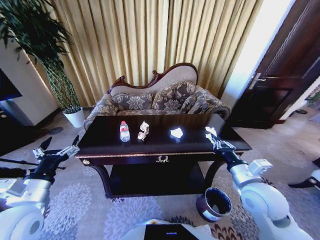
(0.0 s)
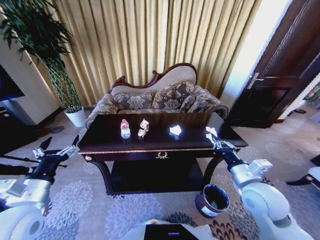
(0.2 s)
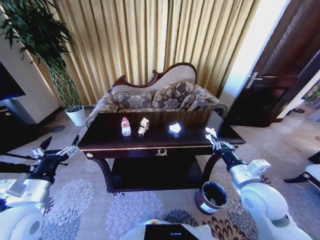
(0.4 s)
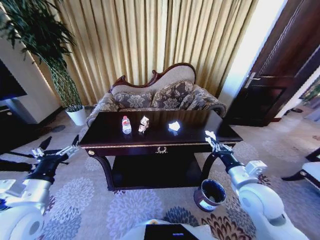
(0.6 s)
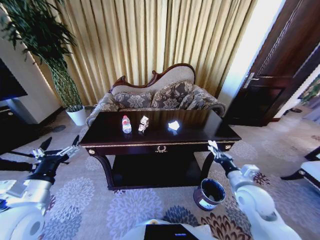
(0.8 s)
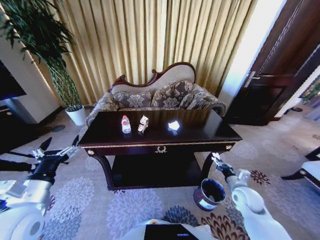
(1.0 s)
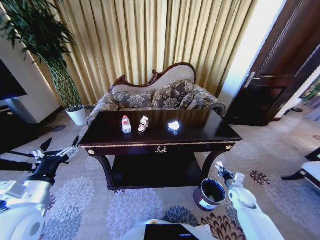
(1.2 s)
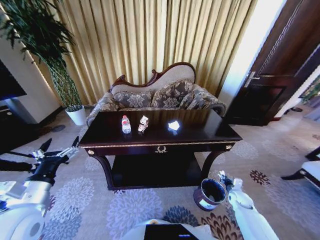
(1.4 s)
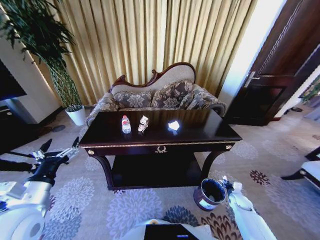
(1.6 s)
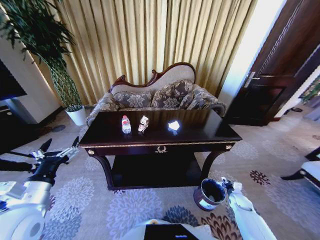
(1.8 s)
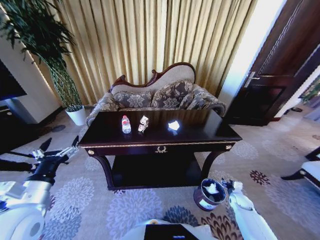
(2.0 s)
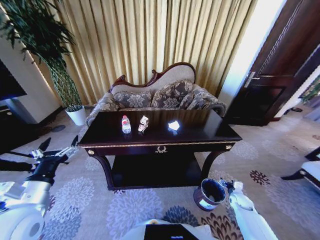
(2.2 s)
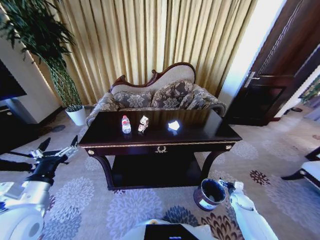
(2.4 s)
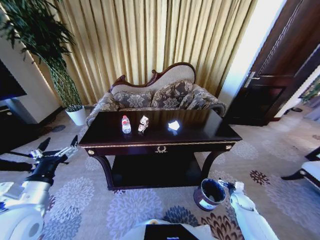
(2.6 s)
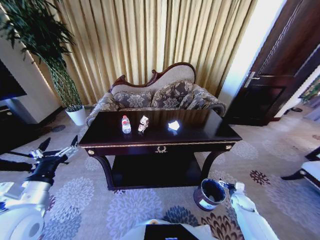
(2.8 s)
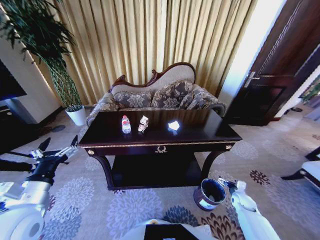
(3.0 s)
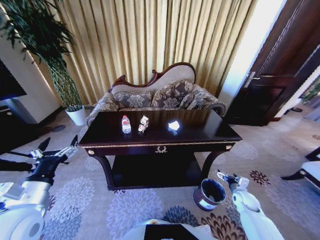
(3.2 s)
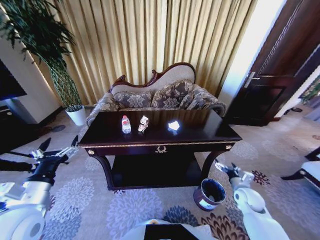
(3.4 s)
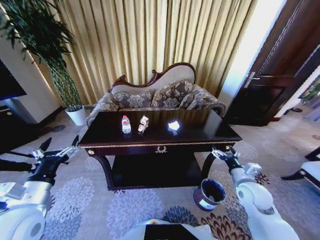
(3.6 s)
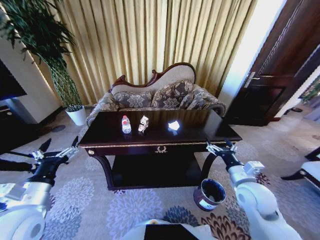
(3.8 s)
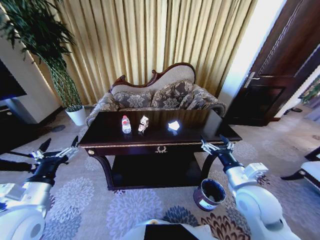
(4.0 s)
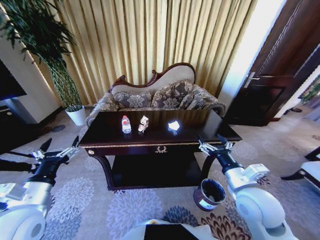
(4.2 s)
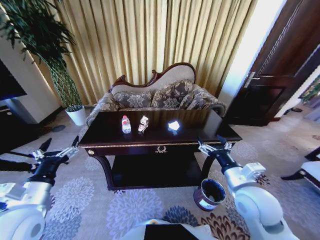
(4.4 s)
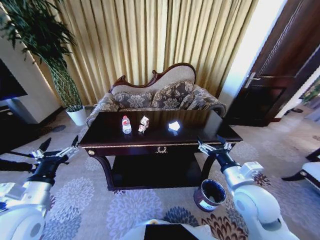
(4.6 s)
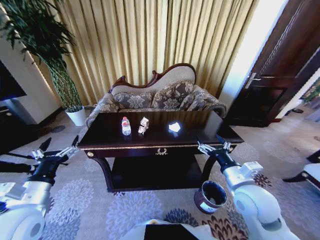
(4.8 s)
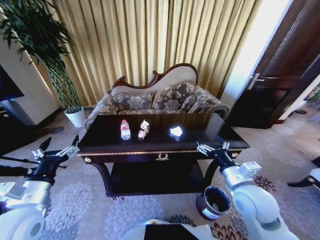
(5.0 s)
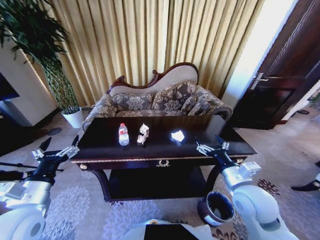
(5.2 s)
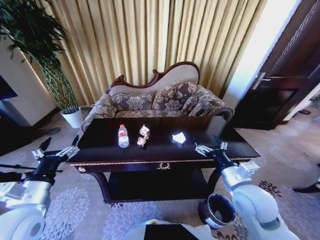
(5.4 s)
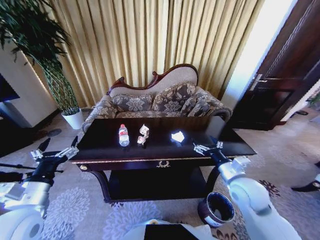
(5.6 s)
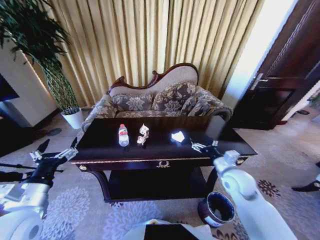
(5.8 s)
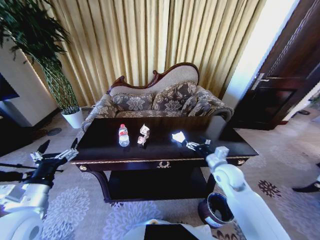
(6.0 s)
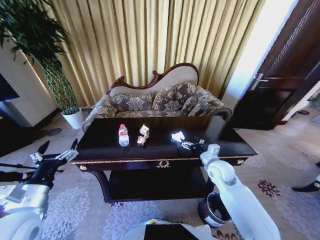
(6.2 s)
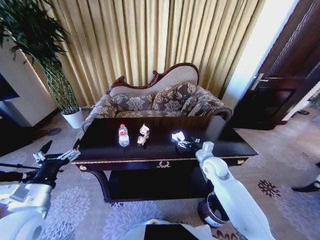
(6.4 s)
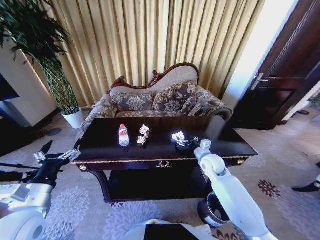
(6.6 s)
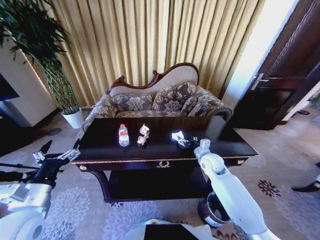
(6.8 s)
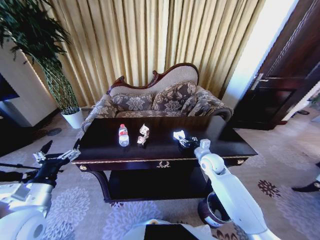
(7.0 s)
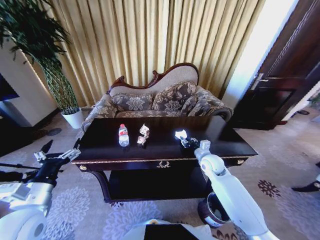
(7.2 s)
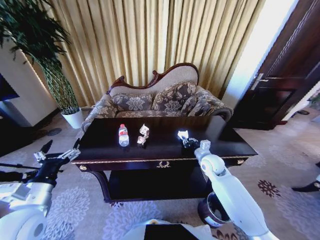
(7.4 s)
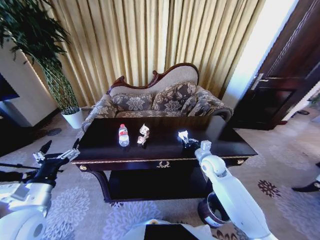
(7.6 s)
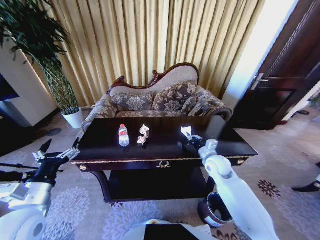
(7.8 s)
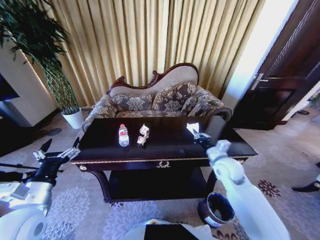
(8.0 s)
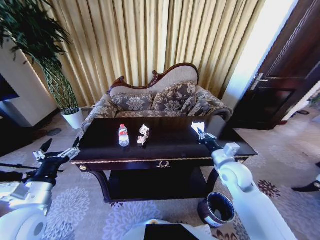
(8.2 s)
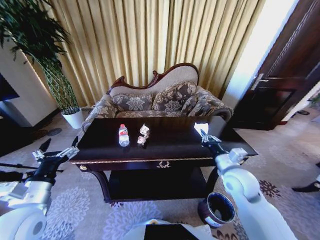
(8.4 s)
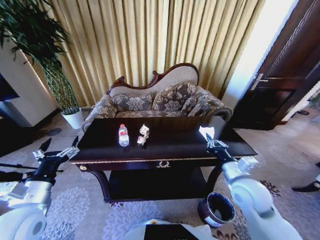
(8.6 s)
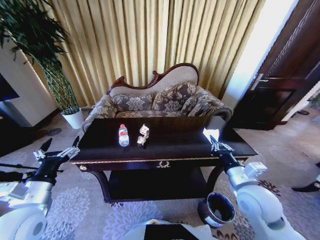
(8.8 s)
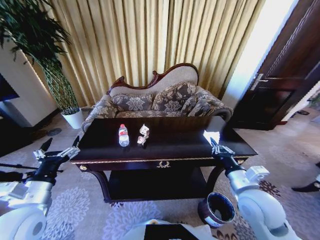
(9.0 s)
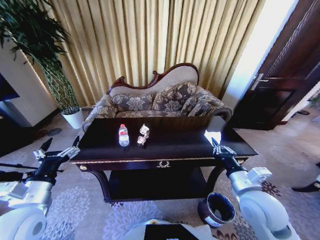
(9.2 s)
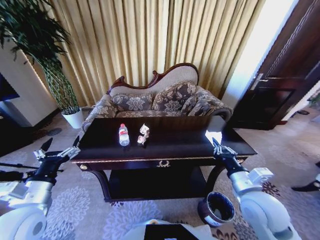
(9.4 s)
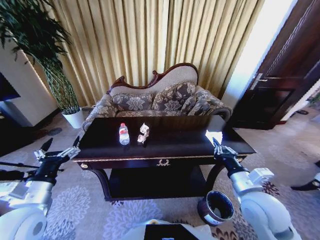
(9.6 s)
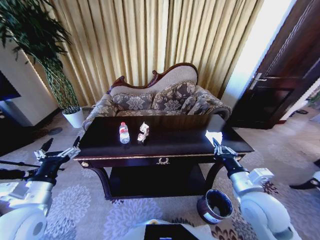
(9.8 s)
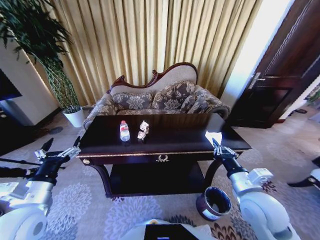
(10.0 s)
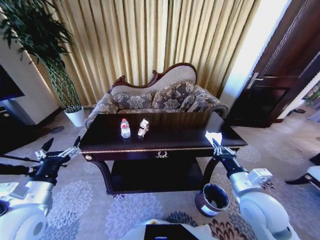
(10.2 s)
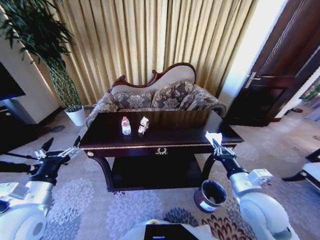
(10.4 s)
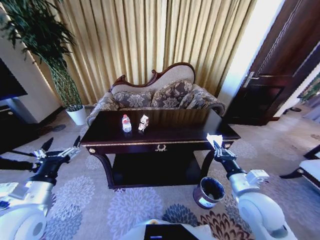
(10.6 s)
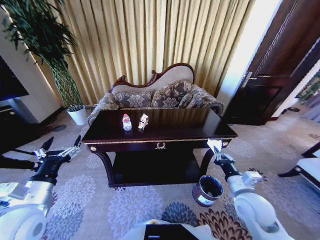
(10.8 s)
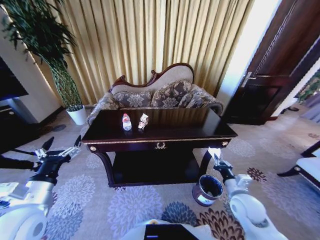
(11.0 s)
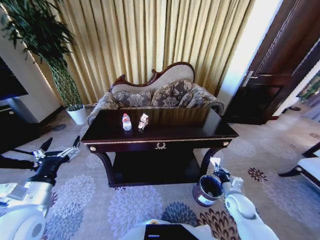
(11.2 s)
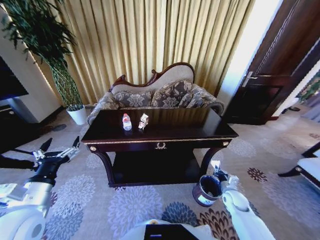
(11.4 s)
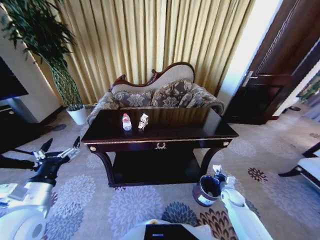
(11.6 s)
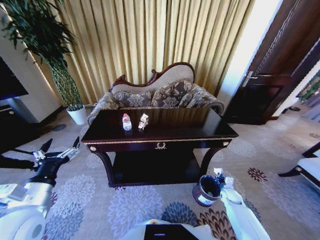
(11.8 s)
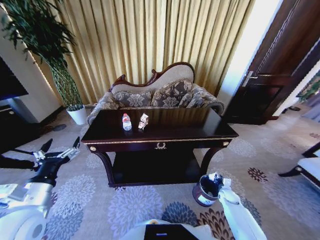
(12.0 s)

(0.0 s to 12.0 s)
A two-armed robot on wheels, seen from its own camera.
Task of the whole recording: Move to the front of the table and place the trash on the table into the trash bin.
0.0 s - 1.6 s: The right gripper goes some 35 cm downward and to the right.
1.6 s - 3.0 s: The right gripper opens its fingers.
3.0 s - 4.4 s: The right gripper shifts some 35 cm upward and to the left.
4.4 s - 6.0 s: The right gripper heads forward and downward, covering some 15 cm.
6.0 s - 7.6 s: The right gripper is displaced forward by roughly 5 cm, and closes its fingers.
7.6 s - 9.0 s: The right gripper shifts about 20 cm backward and upward.
10.4 s - 12.0 s: The right gripper moves downward and to the right, some 35 cm.

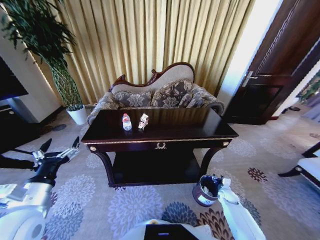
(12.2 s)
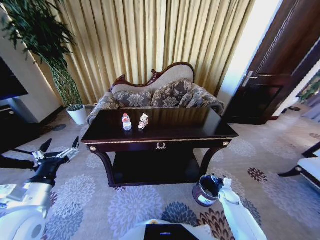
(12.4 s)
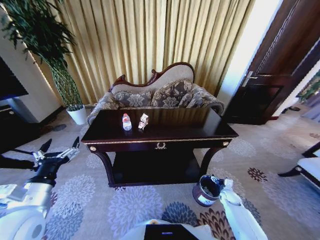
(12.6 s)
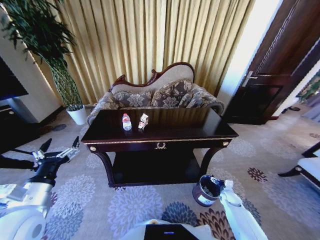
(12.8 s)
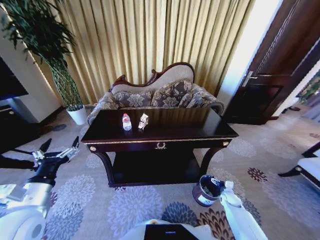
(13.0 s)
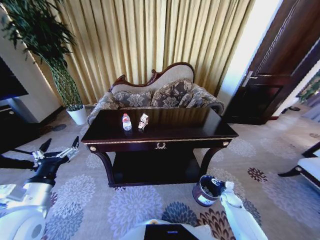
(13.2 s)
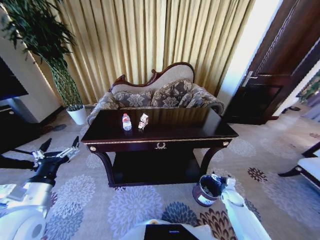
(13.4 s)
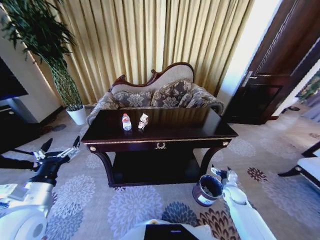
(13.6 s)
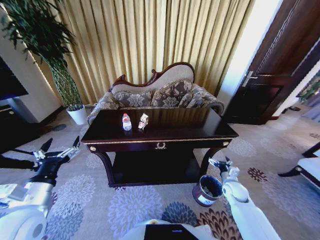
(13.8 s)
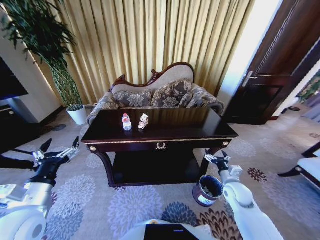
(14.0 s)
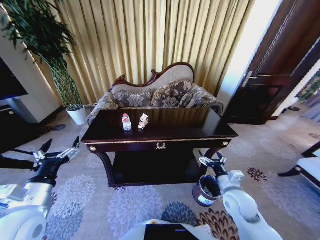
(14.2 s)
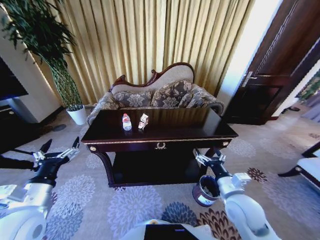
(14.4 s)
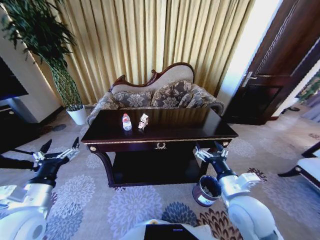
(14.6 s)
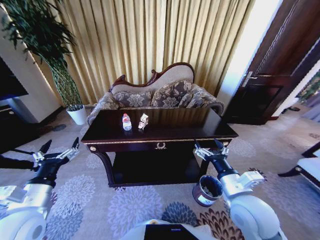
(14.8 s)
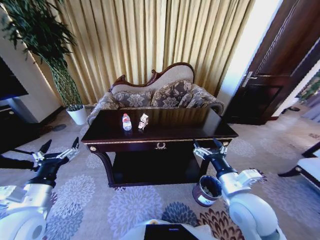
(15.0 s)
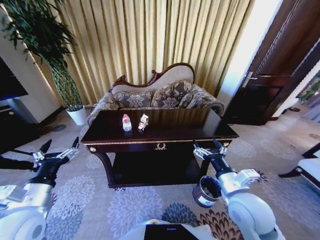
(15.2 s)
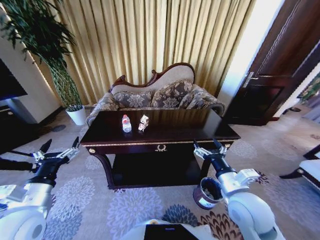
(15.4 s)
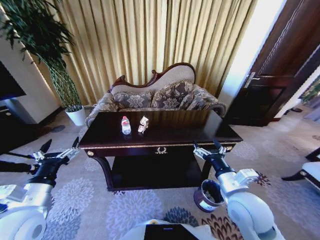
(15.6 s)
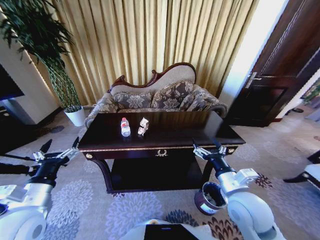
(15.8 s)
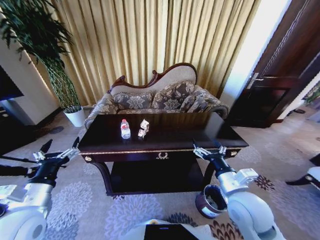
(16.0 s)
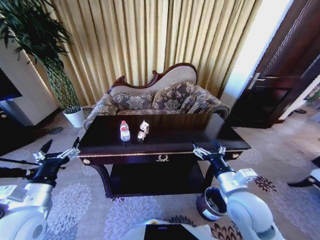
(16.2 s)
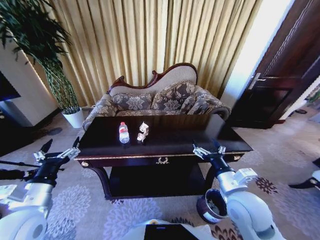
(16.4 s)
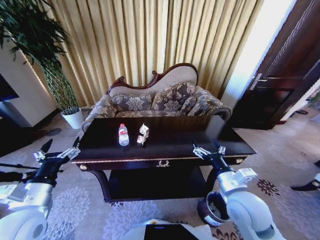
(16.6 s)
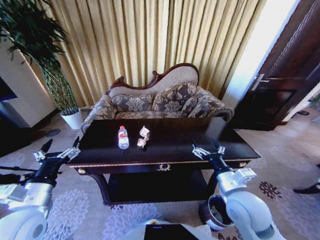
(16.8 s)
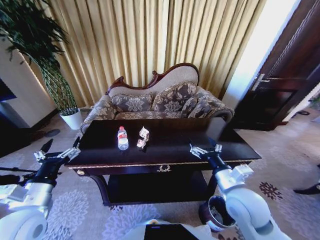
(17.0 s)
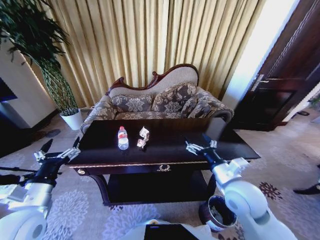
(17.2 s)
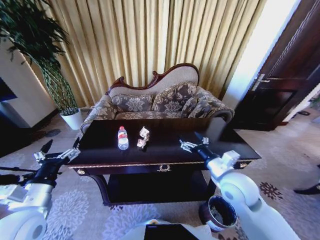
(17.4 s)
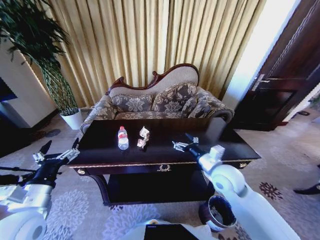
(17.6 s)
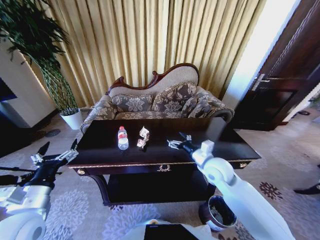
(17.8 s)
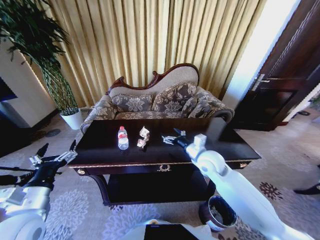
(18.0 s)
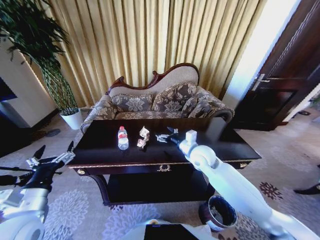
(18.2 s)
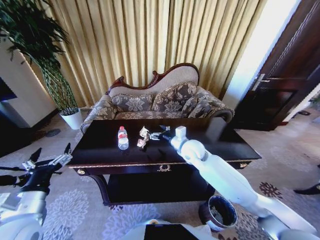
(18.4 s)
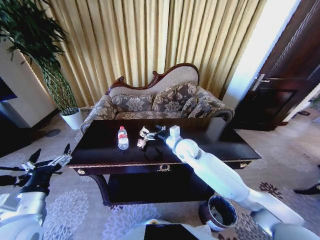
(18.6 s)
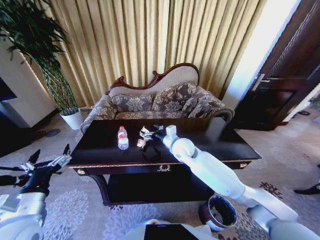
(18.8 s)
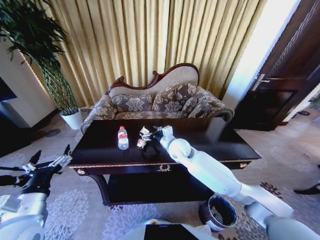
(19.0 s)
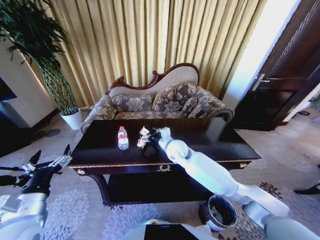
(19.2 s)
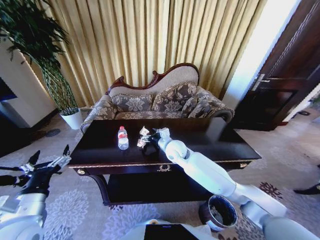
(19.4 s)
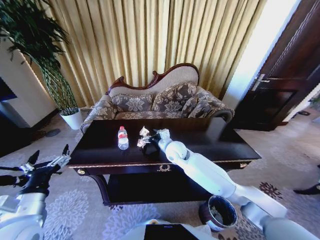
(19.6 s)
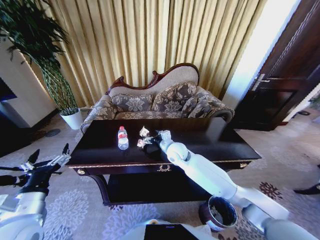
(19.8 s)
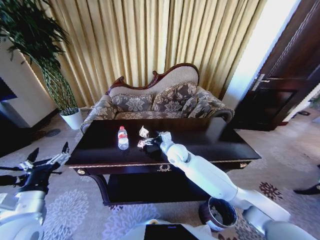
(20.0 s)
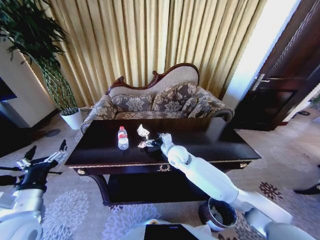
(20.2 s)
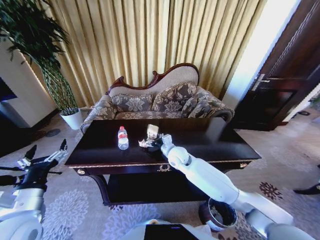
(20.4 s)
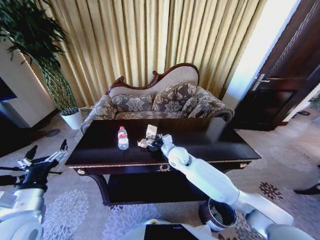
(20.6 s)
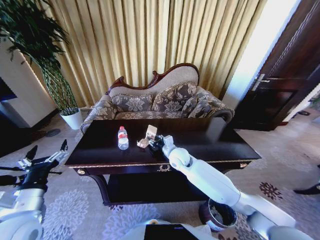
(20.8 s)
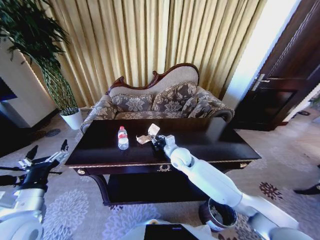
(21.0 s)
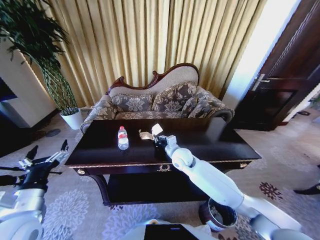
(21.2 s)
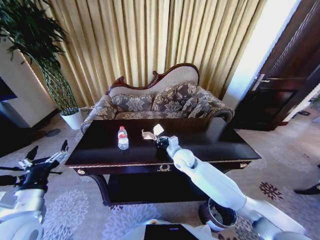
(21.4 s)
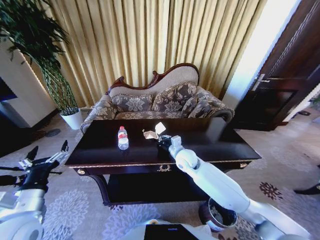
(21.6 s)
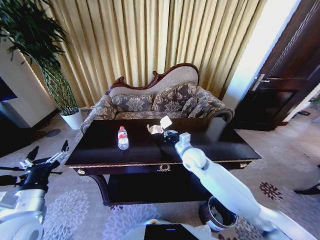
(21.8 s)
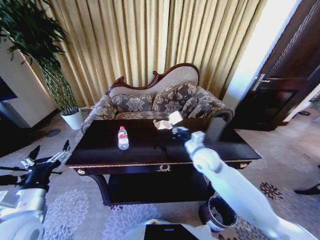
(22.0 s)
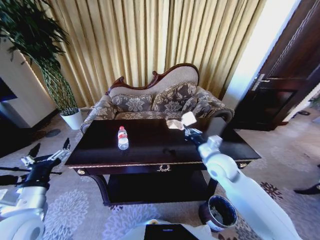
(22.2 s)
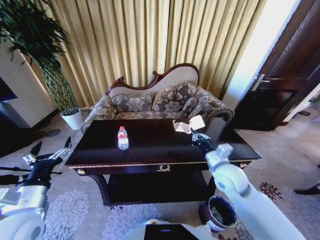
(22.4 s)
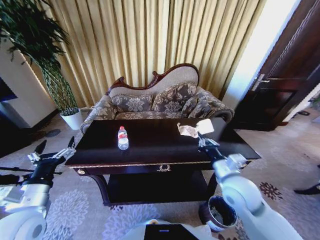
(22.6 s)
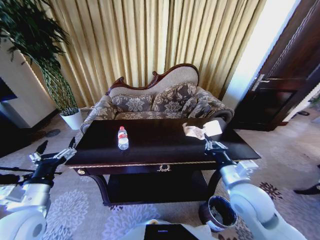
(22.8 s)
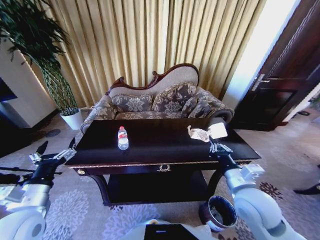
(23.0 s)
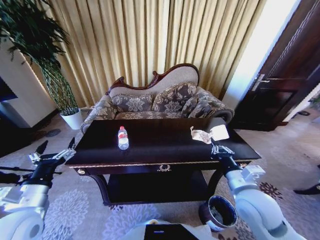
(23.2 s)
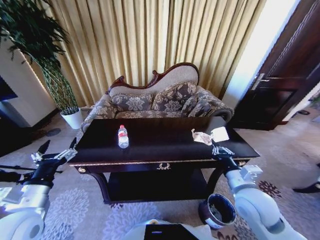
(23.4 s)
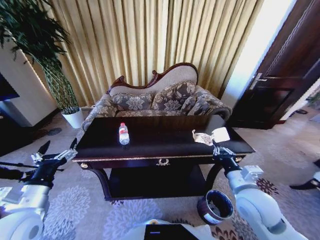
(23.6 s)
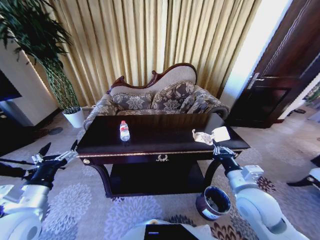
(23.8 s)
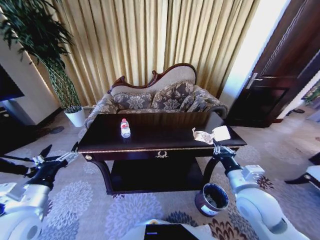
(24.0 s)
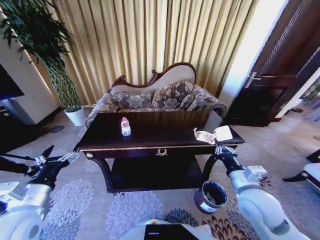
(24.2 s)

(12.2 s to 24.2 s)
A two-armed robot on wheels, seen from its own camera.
Task of the whole recording: Move to the front of the table and place the trash on the table into the trash bin.
12.2 s - 13.8 s: The right gripper travels upward by about 15 cm, and opens its fingers.
13.8 s - 15.2 s: The right gripper goes some 30 cm upward, to the left and backward.
16.6 s - 18.2 s: The right gripper is displaced forward by about 20 cm.
18.2 s - 19.8 s: The right gripper goes approximately 10 cm to the left.
19.8 s - 21.2 s: The right gripper closes its fingers.
21.2 s - 22.6 s: The right gripper heads backward and to the right, covering roughly 20 cm.
22.6 s - 24.2 s: The right gripper ends up roughly 5 cm from where it was.
